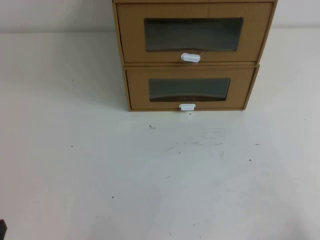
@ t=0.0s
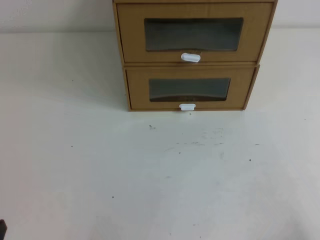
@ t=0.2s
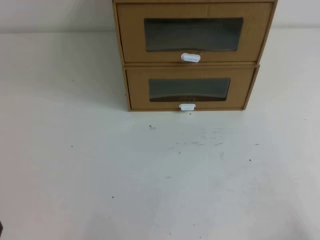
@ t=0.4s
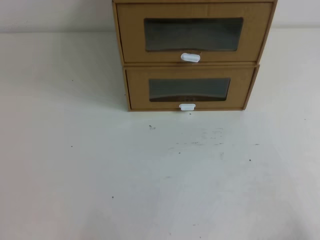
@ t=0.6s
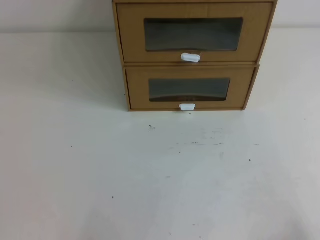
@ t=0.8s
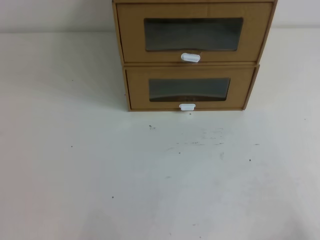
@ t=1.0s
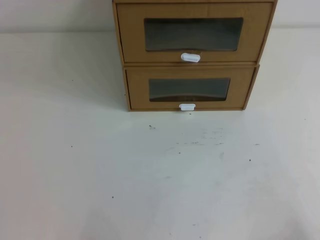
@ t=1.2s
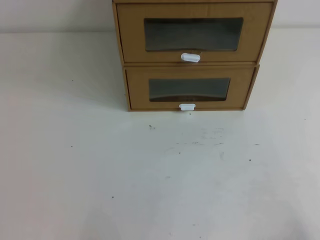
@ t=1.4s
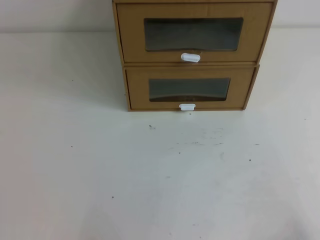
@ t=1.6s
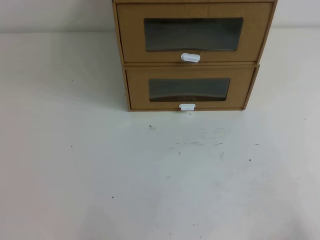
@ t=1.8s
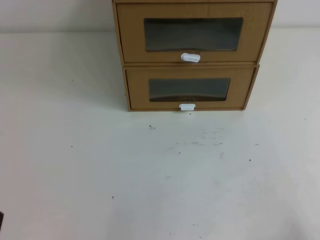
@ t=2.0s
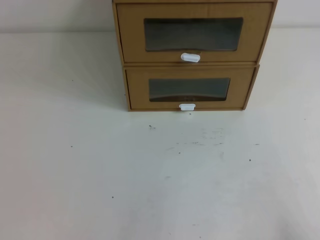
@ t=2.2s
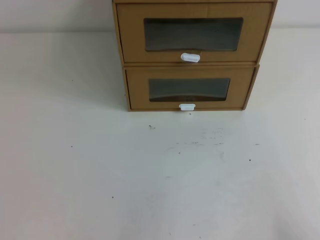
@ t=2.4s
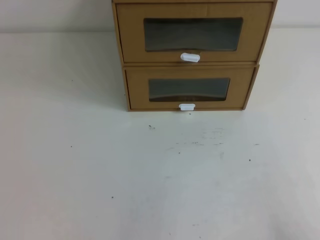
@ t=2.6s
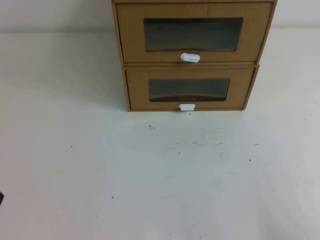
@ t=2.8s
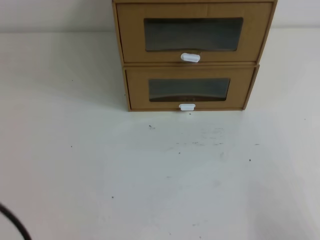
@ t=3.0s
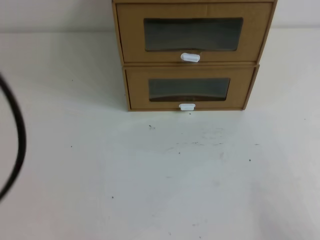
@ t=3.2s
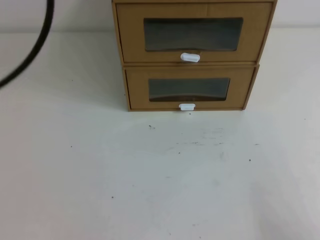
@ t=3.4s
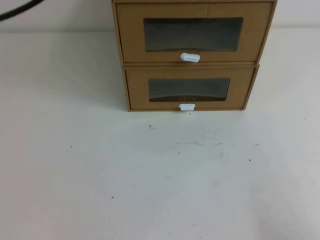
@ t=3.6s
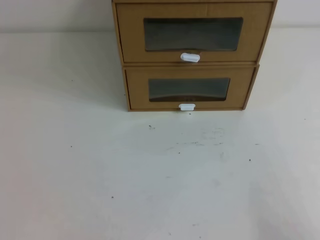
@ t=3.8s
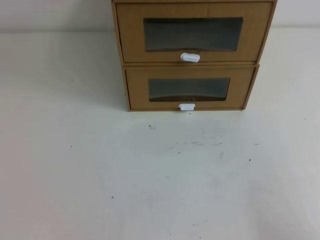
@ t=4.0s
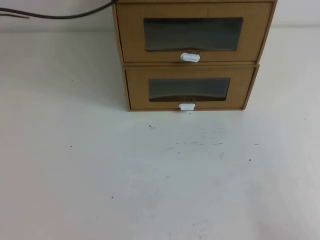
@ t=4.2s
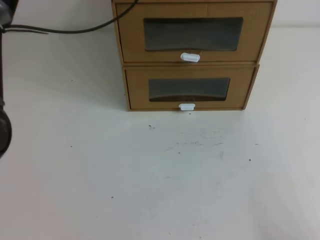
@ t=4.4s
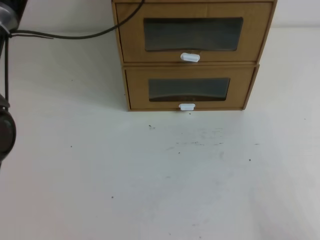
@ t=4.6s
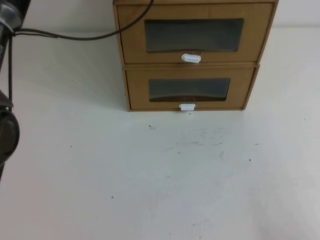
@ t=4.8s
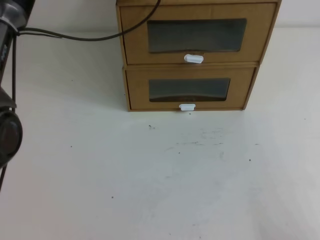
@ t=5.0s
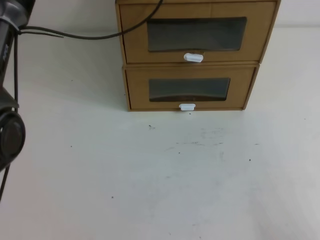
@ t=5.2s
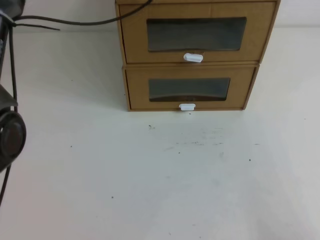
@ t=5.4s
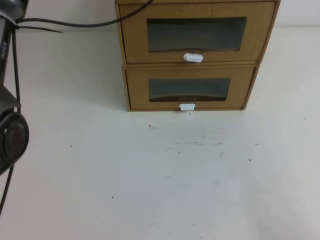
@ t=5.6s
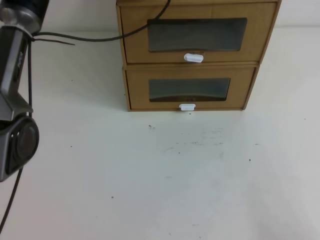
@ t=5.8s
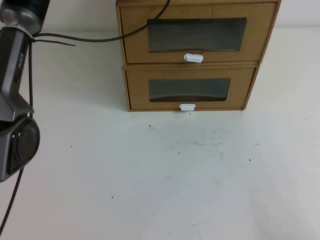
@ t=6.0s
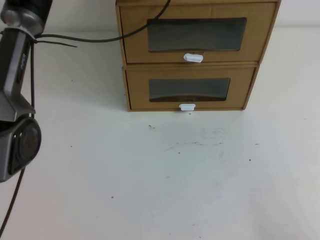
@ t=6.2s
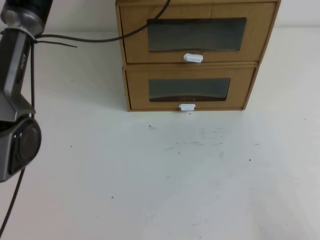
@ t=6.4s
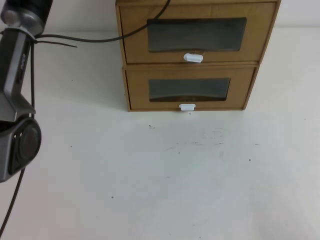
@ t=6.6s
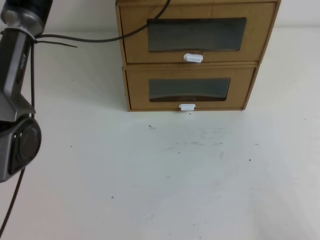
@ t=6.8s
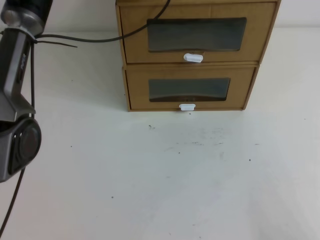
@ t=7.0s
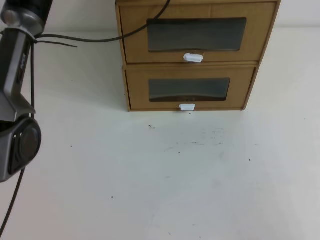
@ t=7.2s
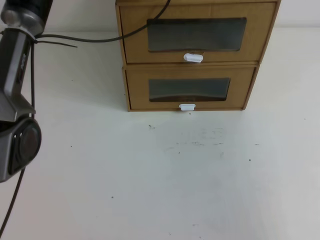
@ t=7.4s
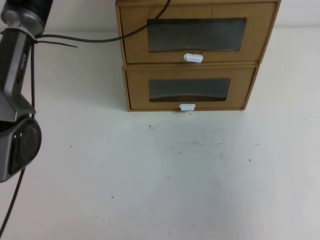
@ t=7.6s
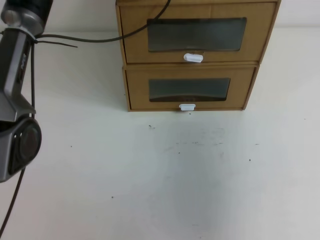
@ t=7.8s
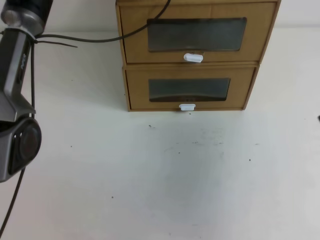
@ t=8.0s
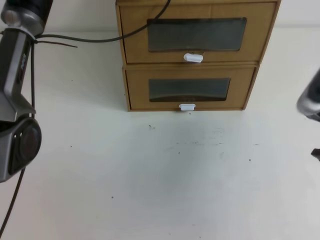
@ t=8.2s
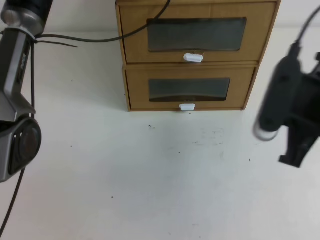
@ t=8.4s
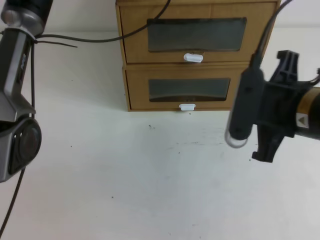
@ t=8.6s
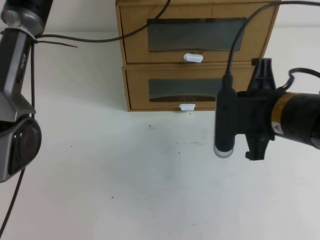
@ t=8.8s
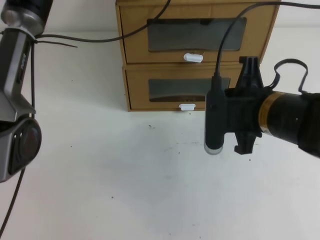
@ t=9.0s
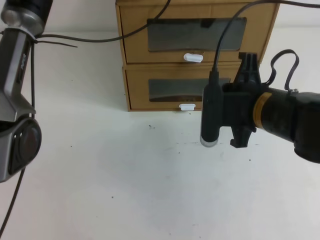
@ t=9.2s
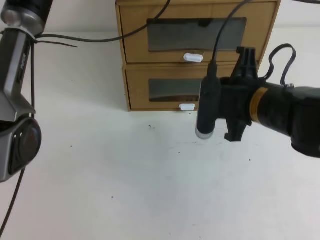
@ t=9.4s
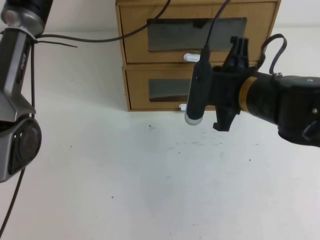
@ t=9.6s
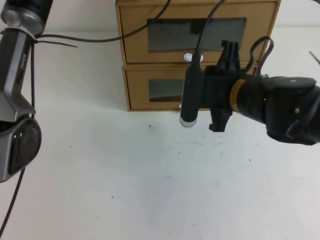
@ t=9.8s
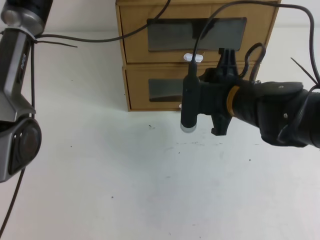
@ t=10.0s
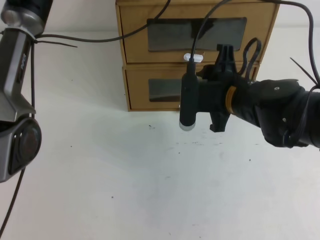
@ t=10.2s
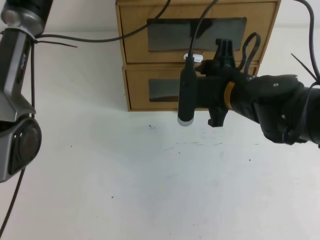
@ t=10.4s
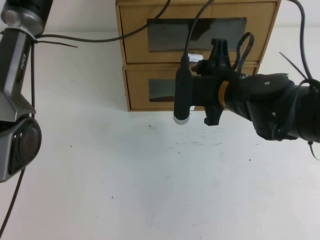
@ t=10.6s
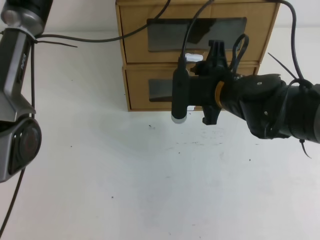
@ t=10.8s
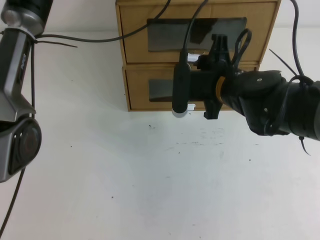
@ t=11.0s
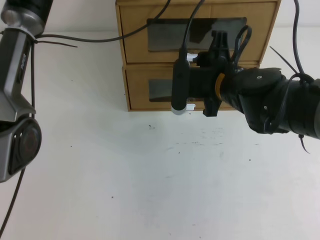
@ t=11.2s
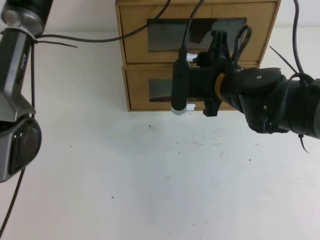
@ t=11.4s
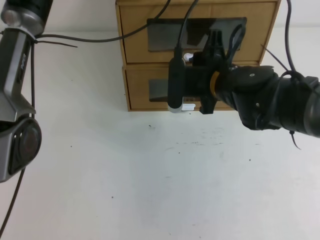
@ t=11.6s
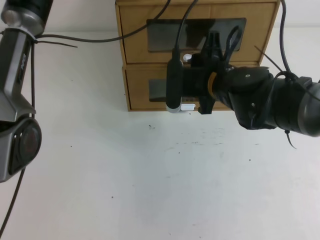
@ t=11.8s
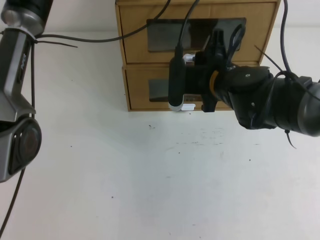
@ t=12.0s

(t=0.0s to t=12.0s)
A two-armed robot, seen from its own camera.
Task of the whole recording: open the shoebox on the table.
t=0.0s - t=1.6s: Both grippers stay about where they are.
t=3.0s - t=4.4s: The left gripper goes roughly 40 cm forward.
t=4.4s - t=6.0s: The left gripper ends up some 5 cm from where it was.
t=6.0s - t=7.6s: The right gripper heads upward, covering about 15 cm.
t=7.6s - t=9.0s: The right gripper moves forward and to the left, about 25 cm.
t=9.0s - t=10.4s: The right gripper shifts about 5 cm forward, and opens.
t=10.4s - t=12.0s: The right gripper closes up.

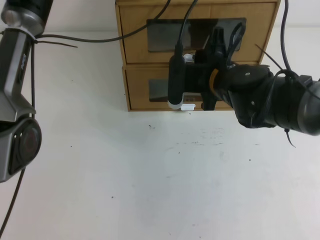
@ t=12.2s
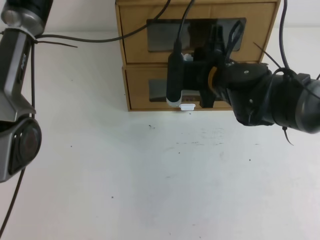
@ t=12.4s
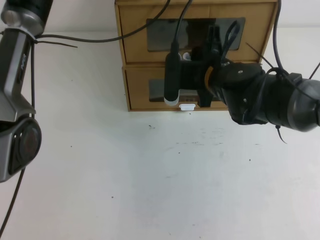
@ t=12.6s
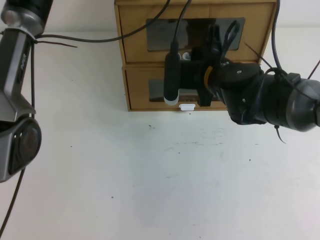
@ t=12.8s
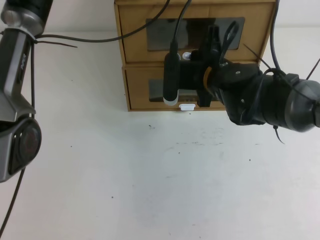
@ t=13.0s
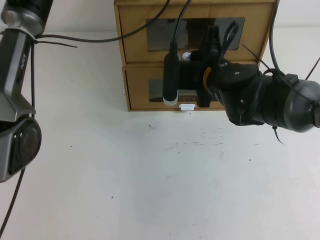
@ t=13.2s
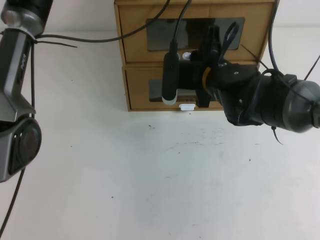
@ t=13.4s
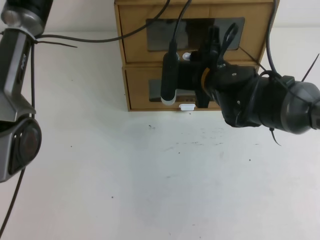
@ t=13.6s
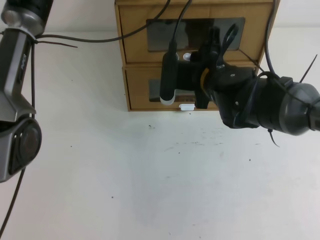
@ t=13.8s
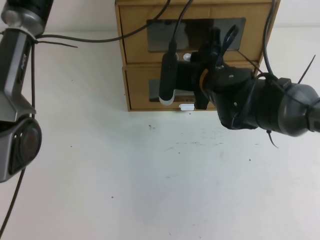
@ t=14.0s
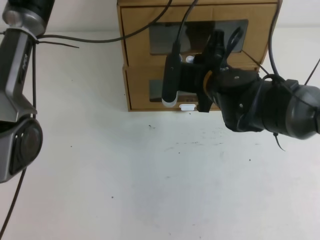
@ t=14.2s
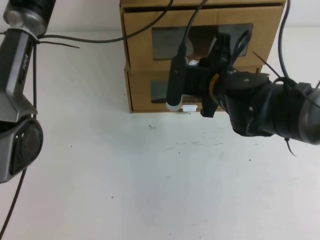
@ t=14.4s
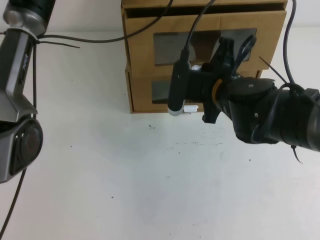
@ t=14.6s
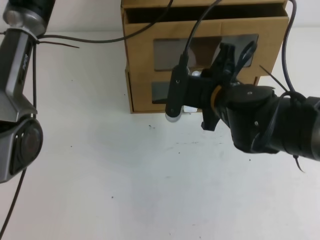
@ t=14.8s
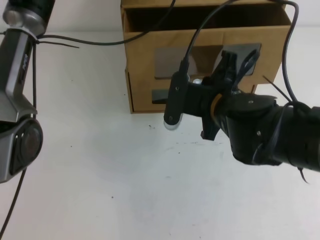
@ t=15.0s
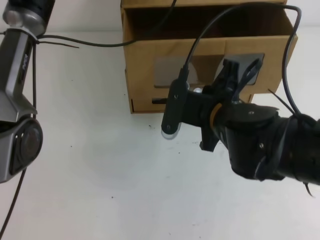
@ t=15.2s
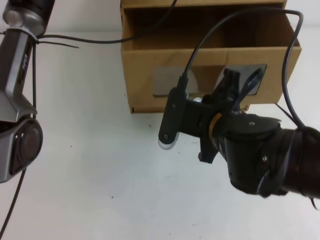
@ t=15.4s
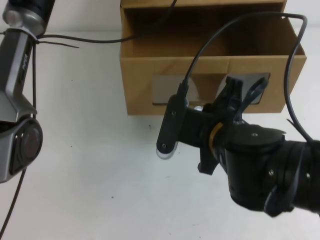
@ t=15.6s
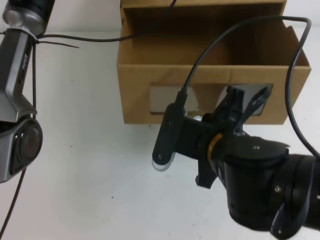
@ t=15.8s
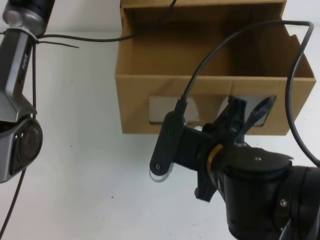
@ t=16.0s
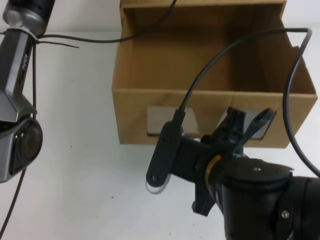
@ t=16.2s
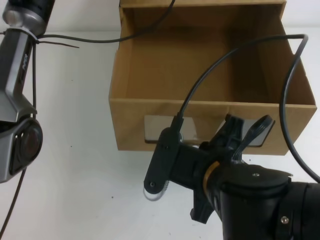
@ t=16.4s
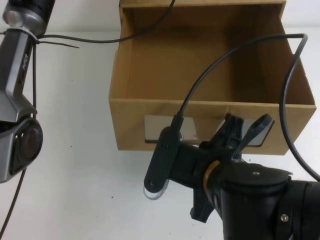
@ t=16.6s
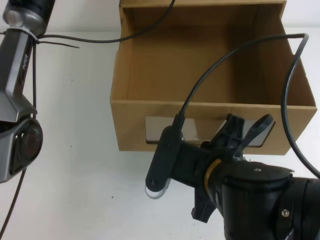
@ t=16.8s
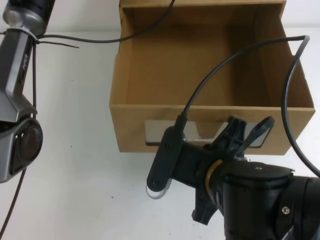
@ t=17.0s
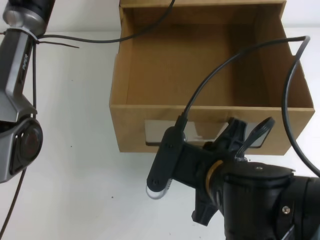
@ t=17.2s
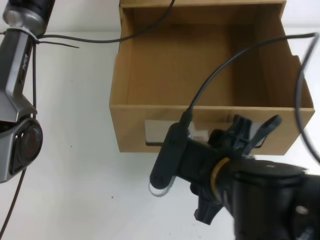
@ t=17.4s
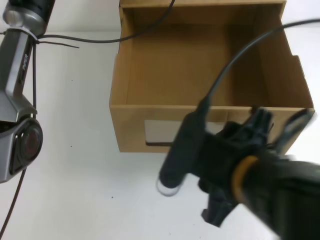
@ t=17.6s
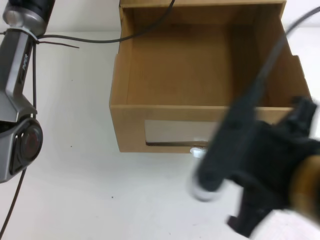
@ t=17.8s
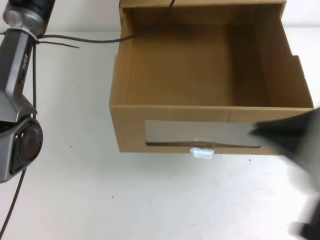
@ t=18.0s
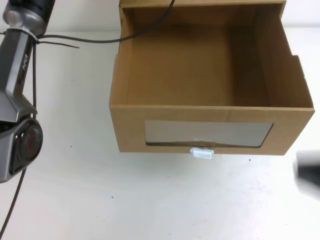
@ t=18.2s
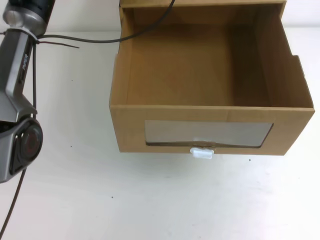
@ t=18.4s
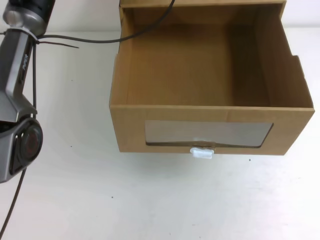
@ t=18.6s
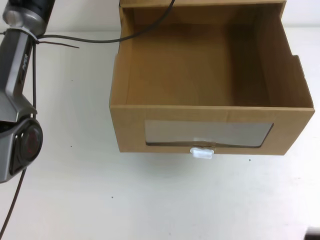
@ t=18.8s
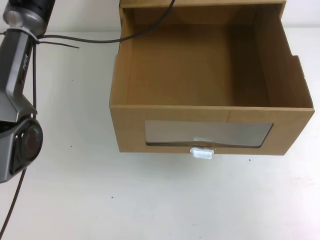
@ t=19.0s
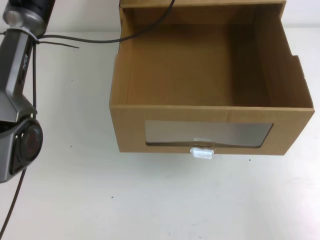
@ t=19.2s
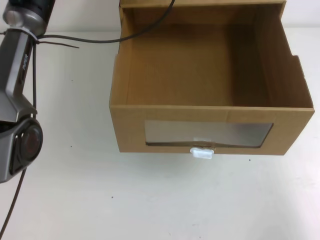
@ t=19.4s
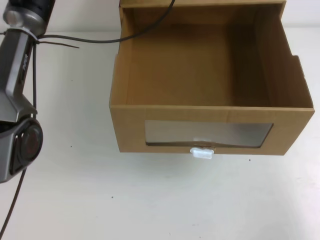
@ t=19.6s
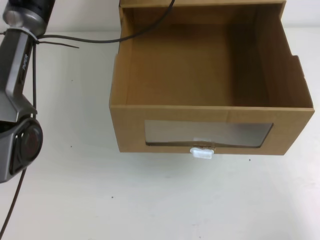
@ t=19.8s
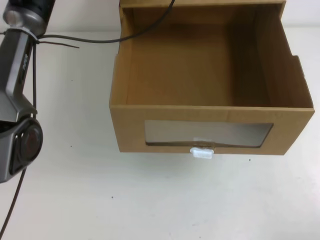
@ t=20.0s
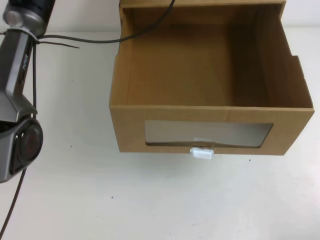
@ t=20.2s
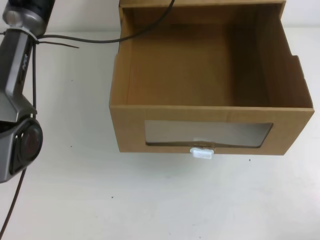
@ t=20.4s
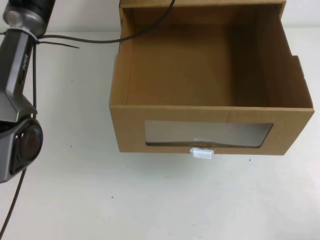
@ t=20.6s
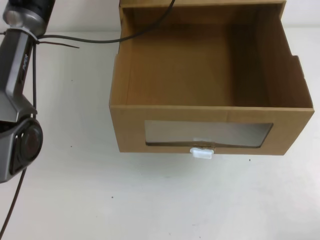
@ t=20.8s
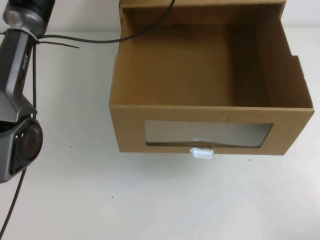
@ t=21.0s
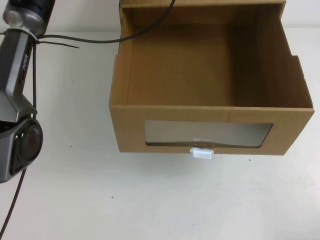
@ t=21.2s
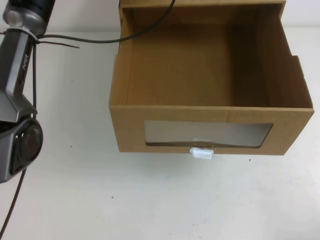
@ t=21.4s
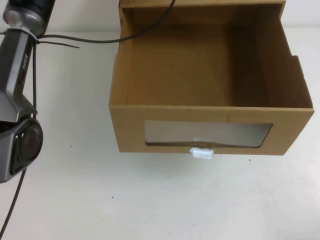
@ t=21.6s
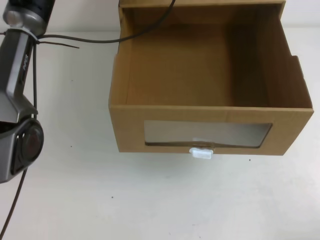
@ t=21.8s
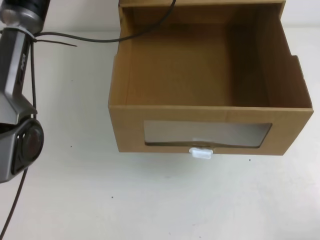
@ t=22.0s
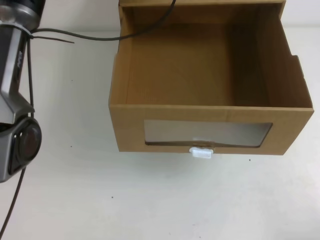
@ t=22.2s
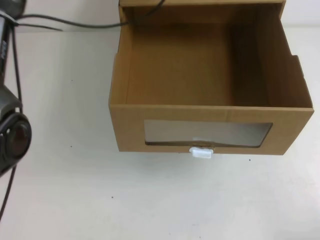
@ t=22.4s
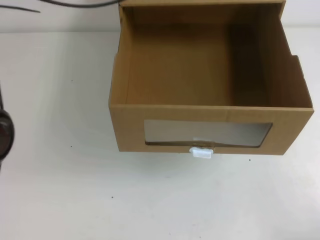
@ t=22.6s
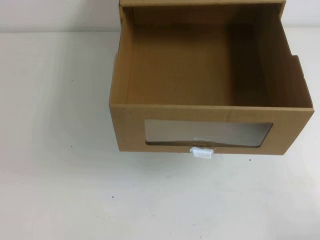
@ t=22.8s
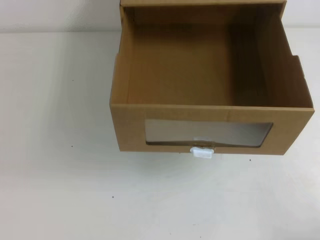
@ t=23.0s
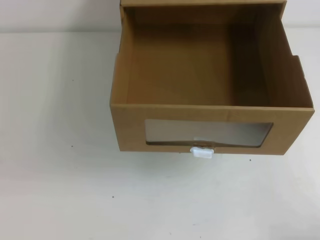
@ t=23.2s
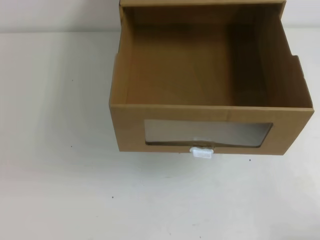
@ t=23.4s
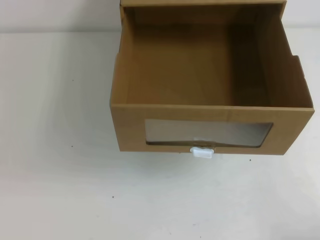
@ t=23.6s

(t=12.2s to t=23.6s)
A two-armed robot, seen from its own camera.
Task of the whole recording: open the shoebox on the table.
t=12.2s - t=13.6s: The right gripper closes up.
t=13.6s - t=15.0s: The right gripper heads backward, covering about 5 cm.
t=15.0s - t=16.4s: The right gripper heads backward, covering roughly 15 cm.
t=16.4s - t=17.8s: The right gripper travels upward, backward and to the right by approximately 10 cm, and opens.
t=17.8s - t=19.4s: The right gripper is displaced to the right and downward by roughly 25 cm, and closes up.
t=19.4s - t=20.8s: The right gripper goes roughly 10 cm downward.
t=20.8s - t=22.2s: The grippers move only a little.
t=22.2s - t=23.6s: The left gripper moves backward, upward and to the left, roughly 50 cm.
